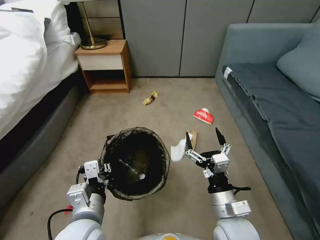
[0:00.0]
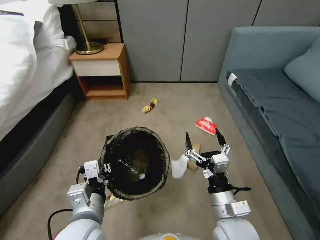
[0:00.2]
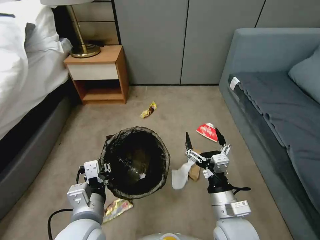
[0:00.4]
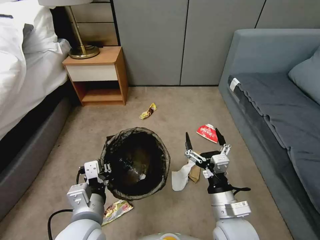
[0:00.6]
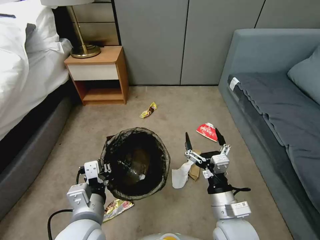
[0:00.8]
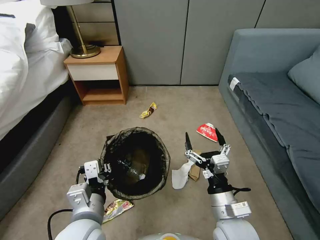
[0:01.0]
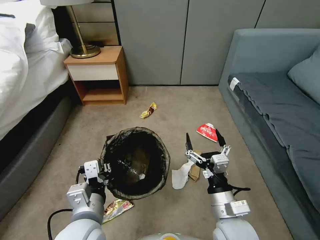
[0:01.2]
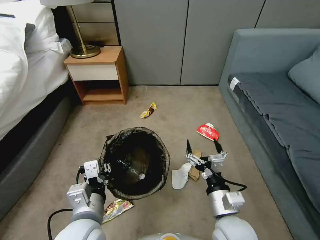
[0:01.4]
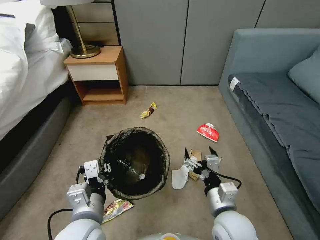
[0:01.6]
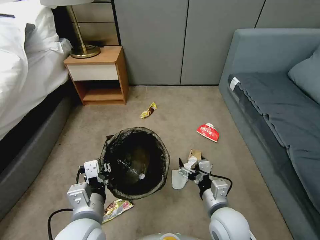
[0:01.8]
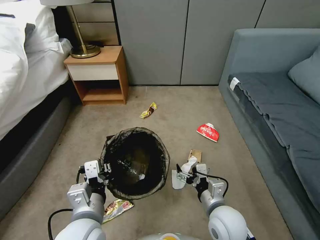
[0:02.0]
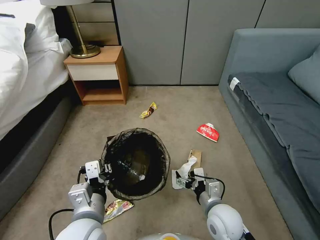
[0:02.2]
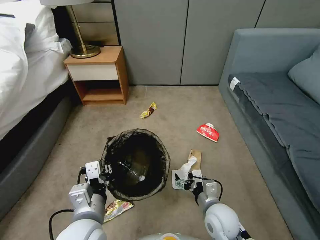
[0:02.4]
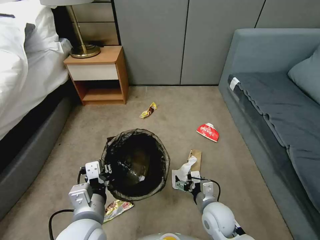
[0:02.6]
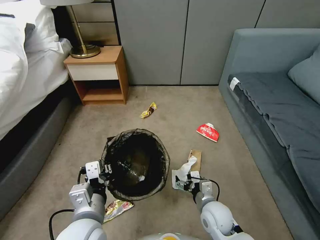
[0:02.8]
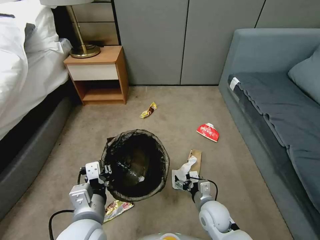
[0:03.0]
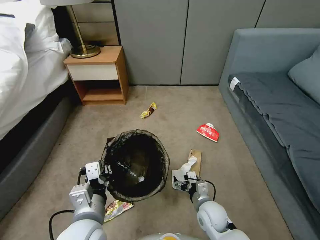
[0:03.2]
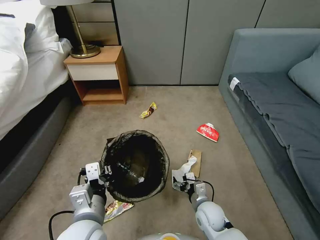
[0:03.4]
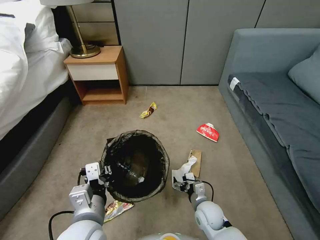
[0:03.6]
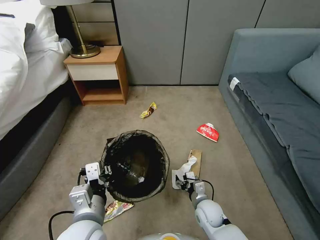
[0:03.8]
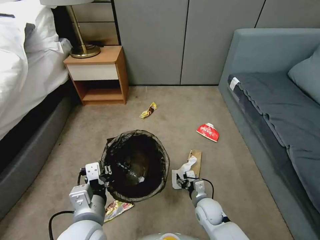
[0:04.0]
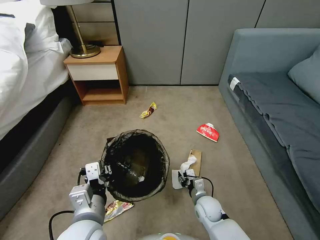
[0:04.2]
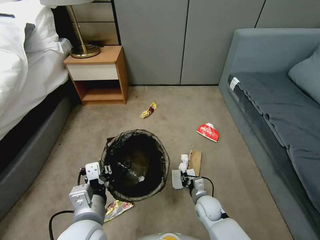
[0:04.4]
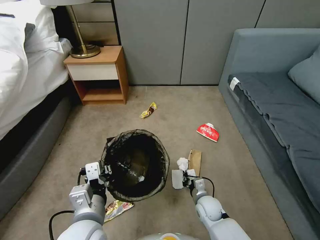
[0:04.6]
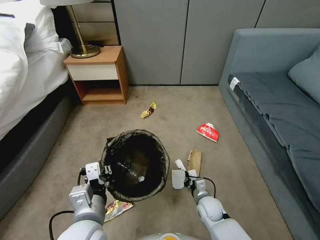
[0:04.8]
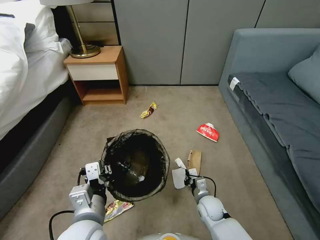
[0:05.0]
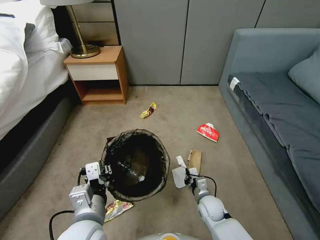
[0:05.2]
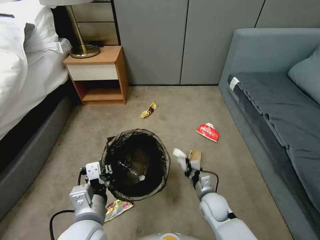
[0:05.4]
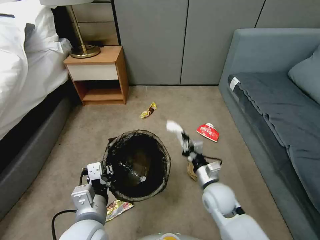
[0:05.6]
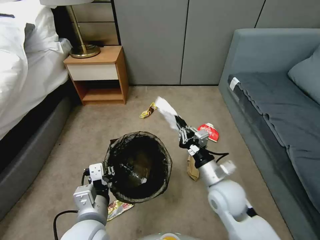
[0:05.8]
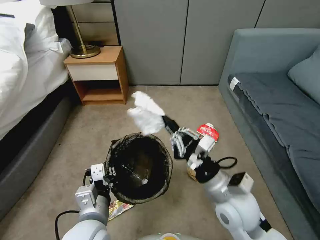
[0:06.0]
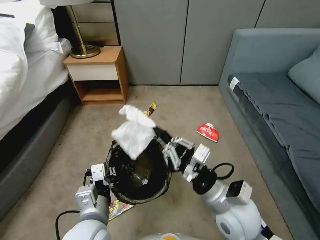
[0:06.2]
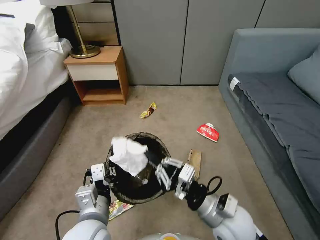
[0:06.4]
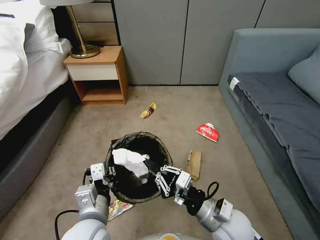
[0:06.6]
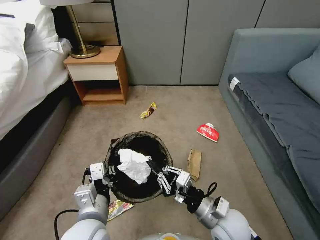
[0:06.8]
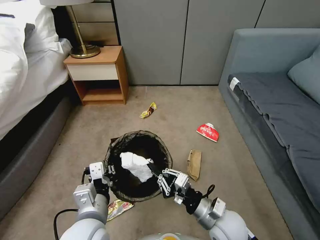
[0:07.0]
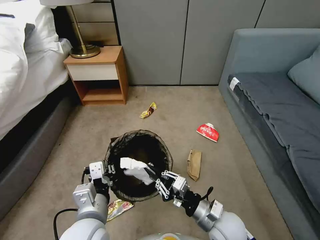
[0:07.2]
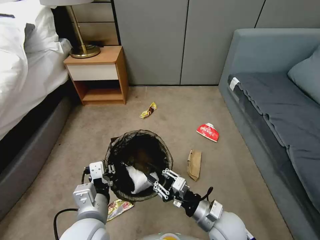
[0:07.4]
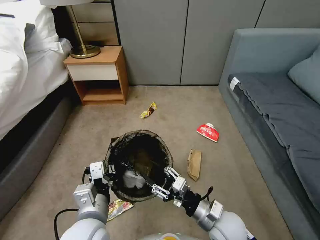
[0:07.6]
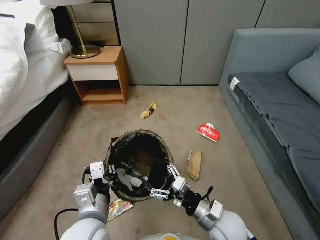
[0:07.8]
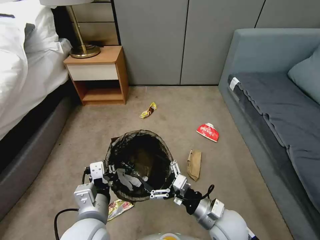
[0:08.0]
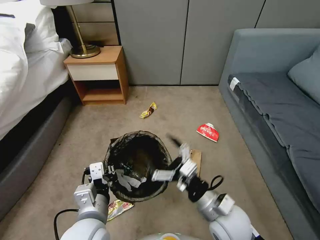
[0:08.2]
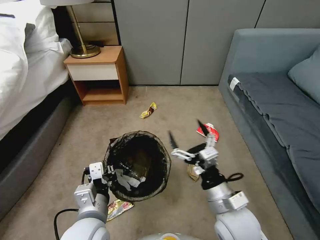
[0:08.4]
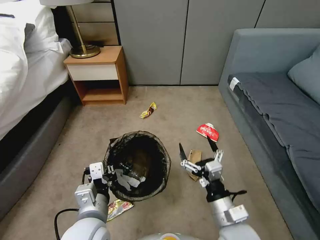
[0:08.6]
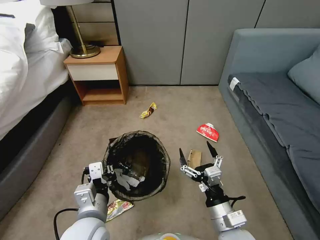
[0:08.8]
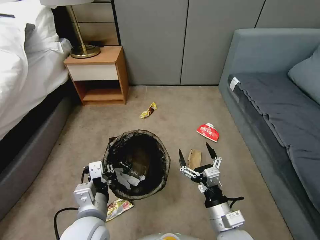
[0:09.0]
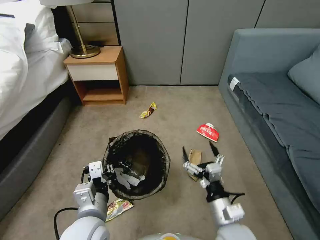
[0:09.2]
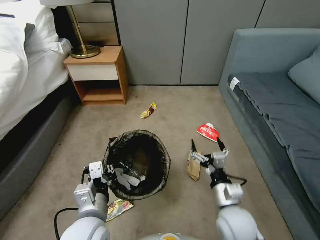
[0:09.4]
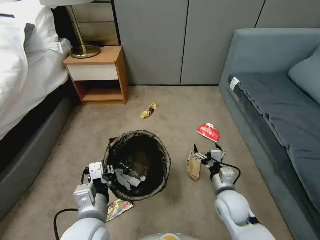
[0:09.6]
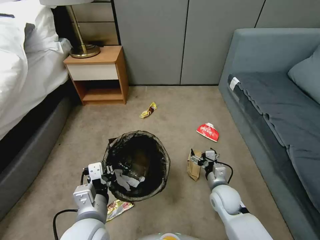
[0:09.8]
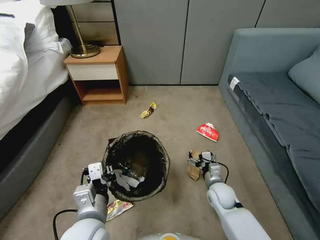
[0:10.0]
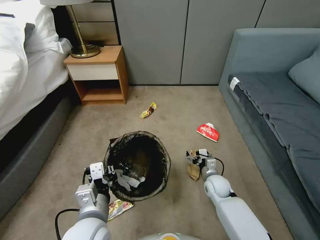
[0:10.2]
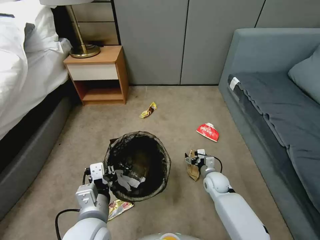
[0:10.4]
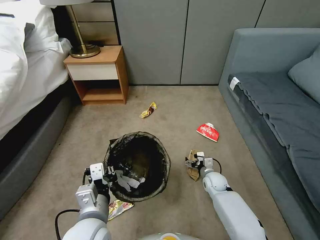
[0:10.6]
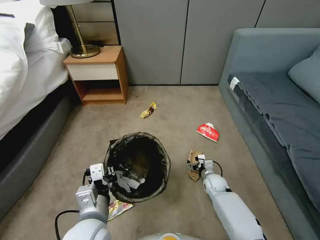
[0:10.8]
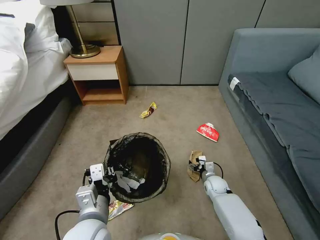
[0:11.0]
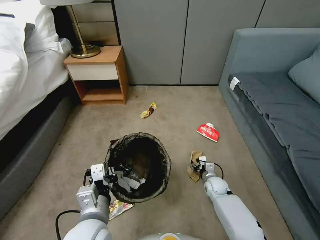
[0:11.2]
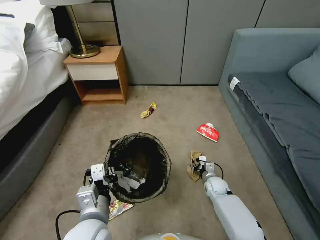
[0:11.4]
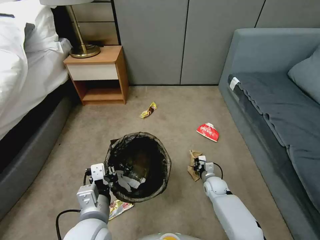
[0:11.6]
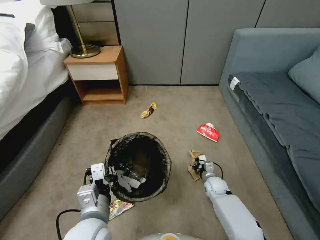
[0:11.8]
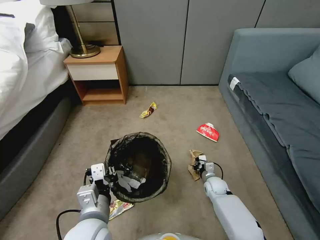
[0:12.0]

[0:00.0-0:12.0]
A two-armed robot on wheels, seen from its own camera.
Task of the whole recording: Pick up the trash bin, then pick up the garbage from the floor and place it into the trash bin.
0:01.6 to 0:03.0: The right gripper moves downward and forward, roughly 15 cm.
0:03.0 to 0:04.4: The right gripper travels downward by some 5 cm, and closes its fingers.
0:04.4 to 0:06.0: The right gripper travels upward by roughly 25 cm.
0:06.0 to 0:07.6: The right gripper moves downward, approximately 10 cm, and opens up.
0:07.6 to 0:09.0: The right gripper moves approximately 10 cm upward and comes back, and opens its fingers.
0:09.0 to 0:10.4: The right gripper heads forward and downward, covering some 25 cm.
0:10.4 to 0:12.0: The right gripper goes some 5 cm downward, and closes up.

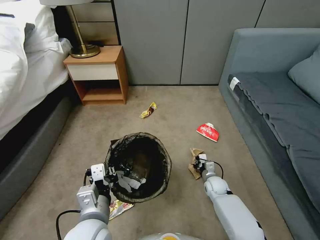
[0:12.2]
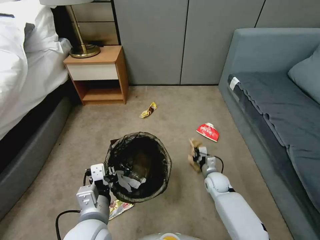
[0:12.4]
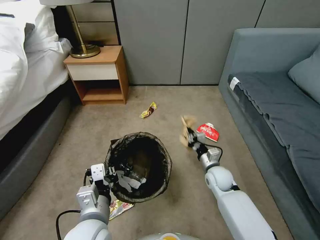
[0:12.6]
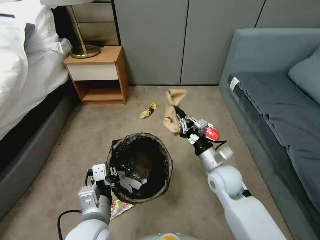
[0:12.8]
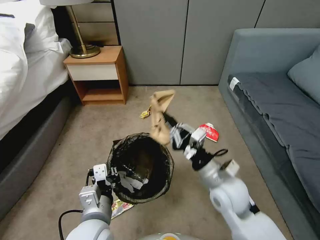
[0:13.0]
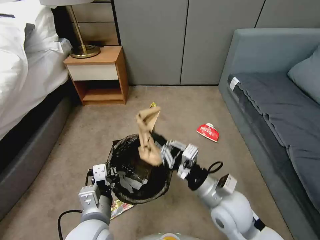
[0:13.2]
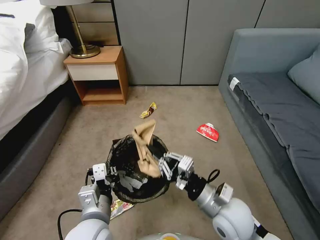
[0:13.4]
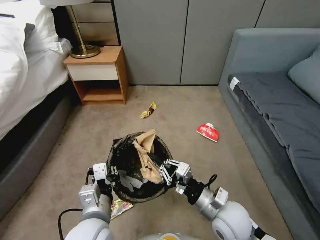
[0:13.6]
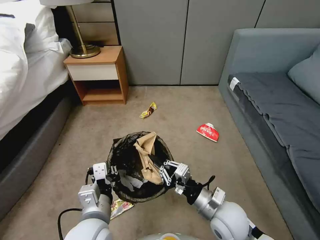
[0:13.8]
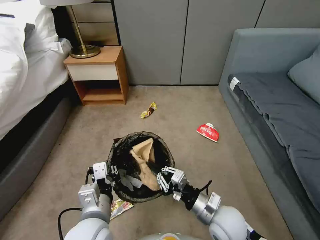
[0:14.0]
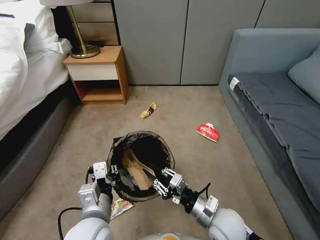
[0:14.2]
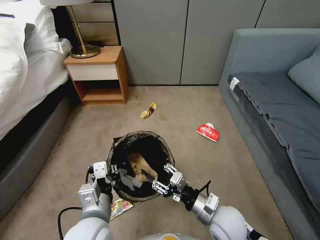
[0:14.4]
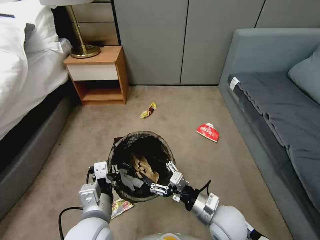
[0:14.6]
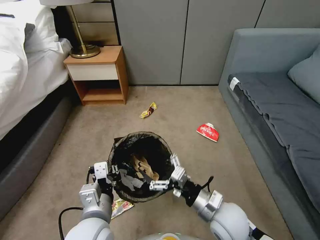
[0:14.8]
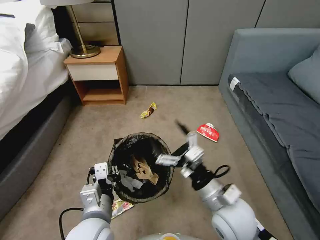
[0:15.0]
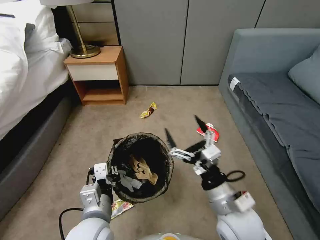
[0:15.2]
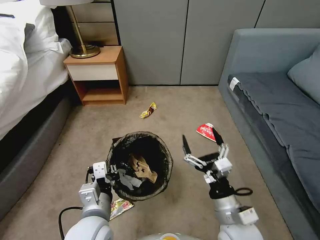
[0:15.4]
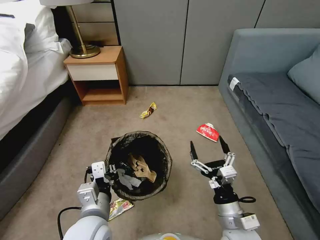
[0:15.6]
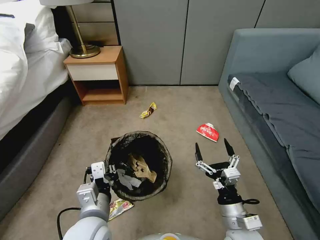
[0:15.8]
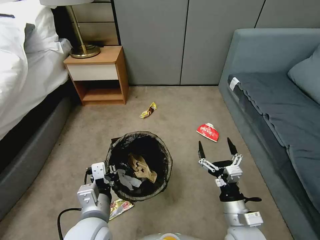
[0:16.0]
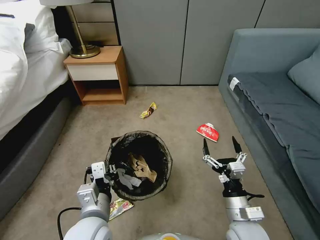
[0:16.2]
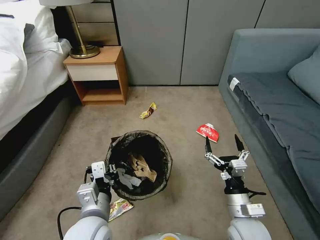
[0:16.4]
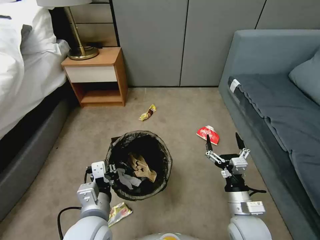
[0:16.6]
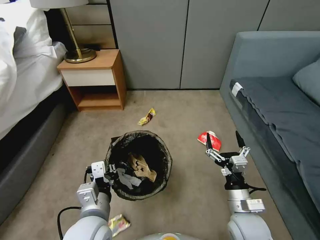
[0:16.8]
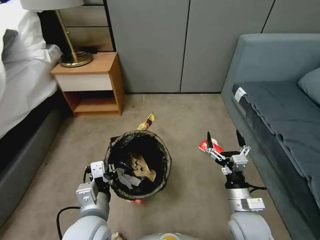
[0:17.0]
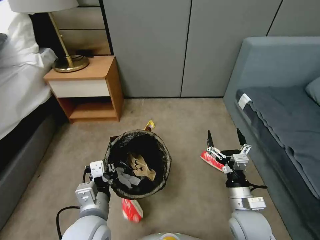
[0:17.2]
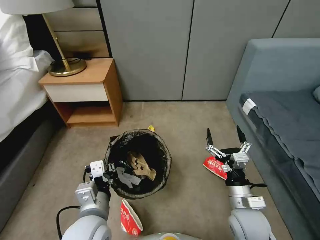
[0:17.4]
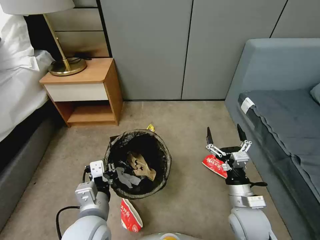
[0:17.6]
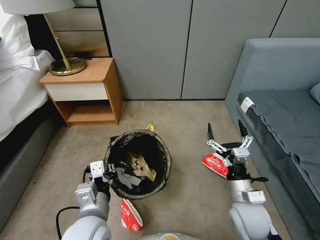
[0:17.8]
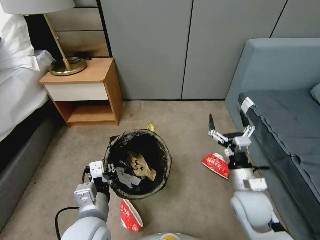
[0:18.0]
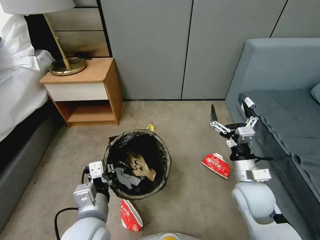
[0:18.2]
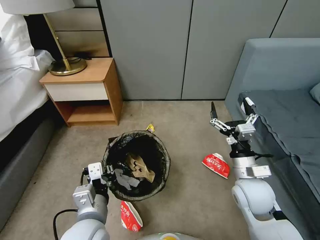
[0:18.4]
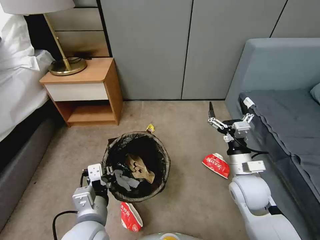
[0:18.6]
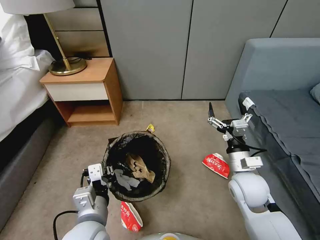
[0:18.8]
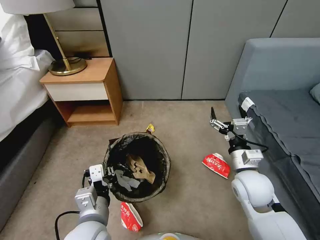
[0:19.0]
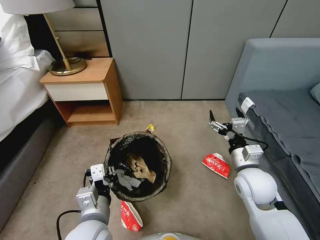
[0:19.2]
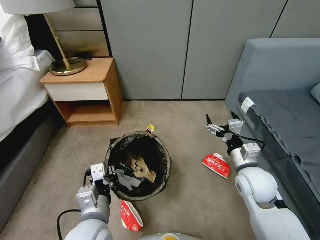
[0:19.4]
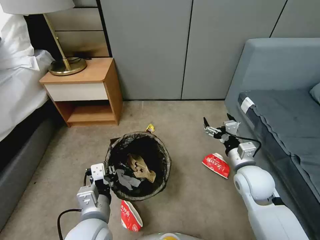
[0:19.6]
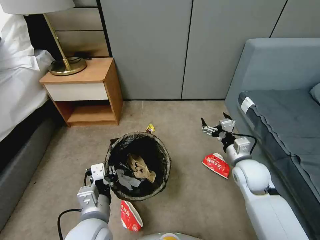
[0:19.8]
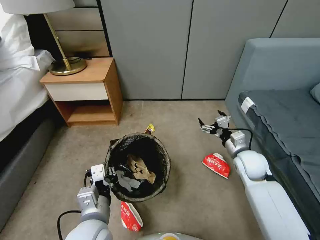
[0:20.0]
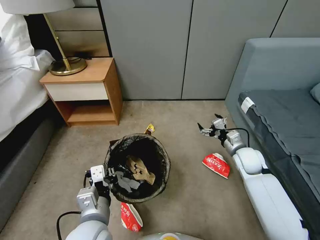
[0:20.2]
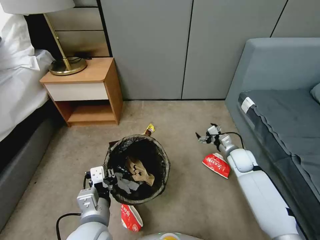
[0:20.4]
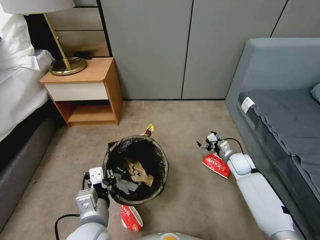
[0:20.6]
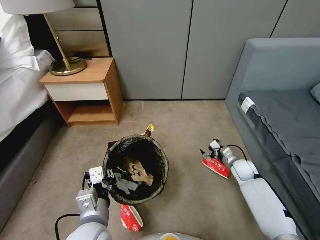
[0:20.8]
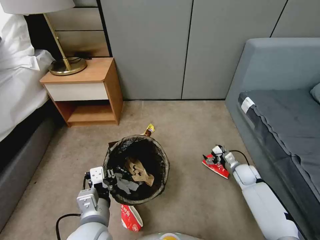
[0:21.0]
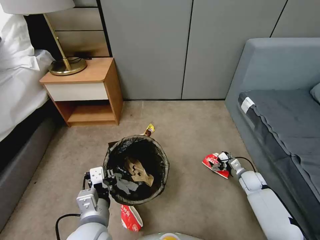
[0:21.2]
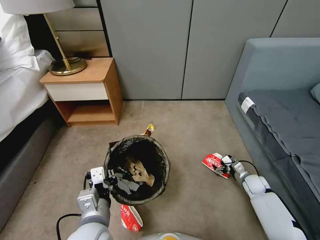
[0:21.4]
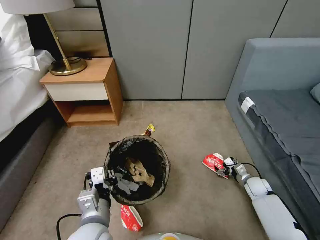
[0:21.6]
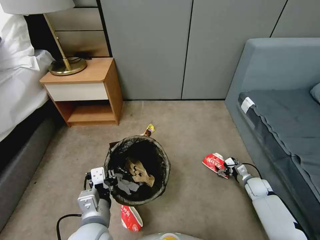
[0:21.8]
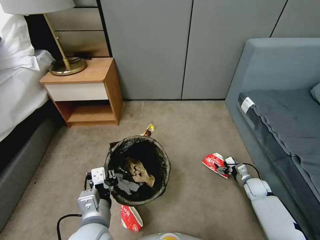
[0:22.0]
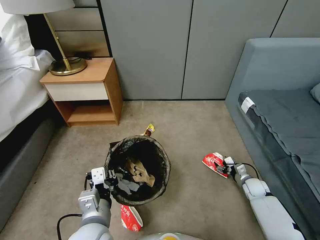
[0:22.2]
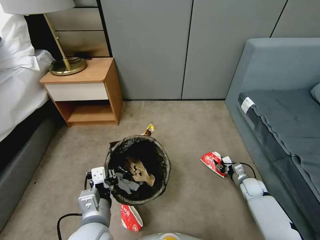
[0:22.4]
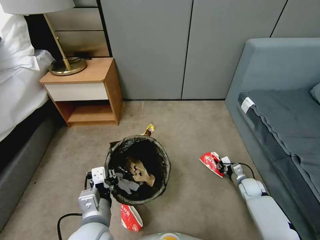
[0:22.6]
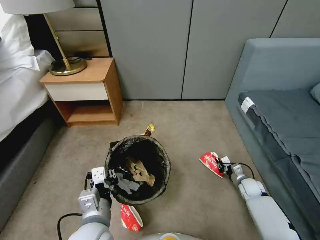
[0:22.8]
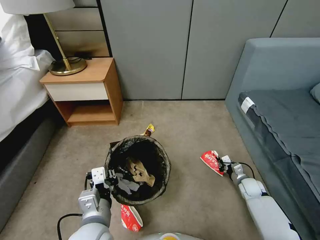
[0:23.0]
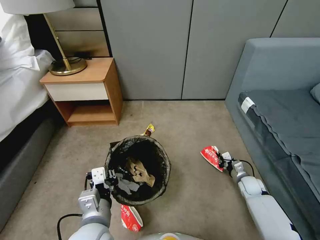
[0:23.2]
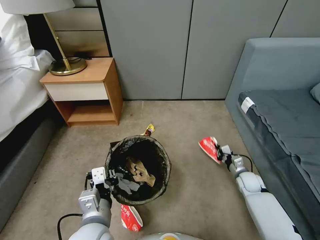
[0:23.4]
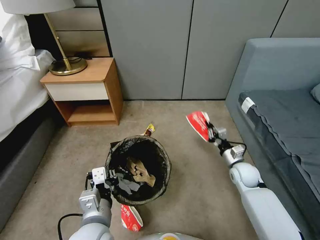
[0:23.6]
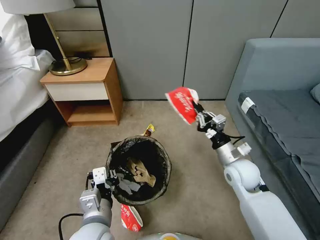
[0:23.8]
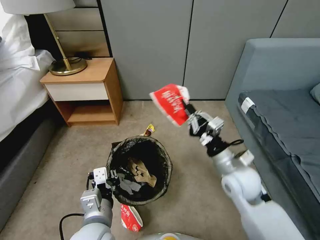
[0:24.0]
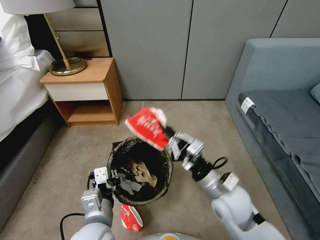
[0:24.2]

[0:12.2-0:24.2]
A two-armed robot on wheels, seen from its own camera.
Task of the whole recording: Pick up the trash bin, then pick up the garbage from the floor and place it into the trash bin.
0:12.2 to 0:13.8: The right gripper is displaced upward and backward by some 25 cm.
0:13.8 to 0:15.2: The right gripper heads upward, covering roughly 5 cm, and opens up.
0:15.2 to 0:16.6: The right gripper is displaced downward and to the right by some 10 cm.
0:16.6 to 0:18.2: The right gripper travels forward and upward by some 10 cm.
0:18.2 to 0:19.8: The right gripper moves forward, approximately 5 cm.
0:19.8 to 0:21.2: The right gripper goes about 25 cm downward and to the right.
0:21.2 to 0:22.6: The right gripper moves roughly 5 cm, and closes its fingers.
0:22.6 to 0:24.2: The right gripper moves upward, to the left and backward, some 35 cm.
